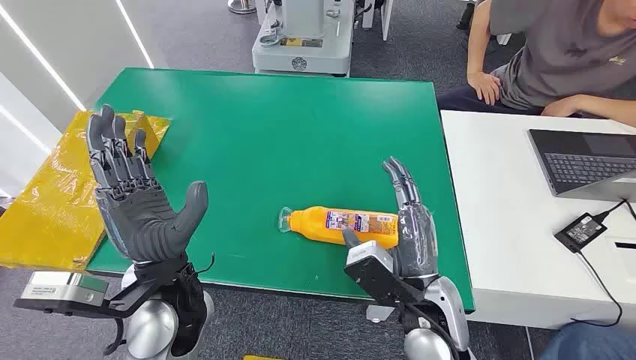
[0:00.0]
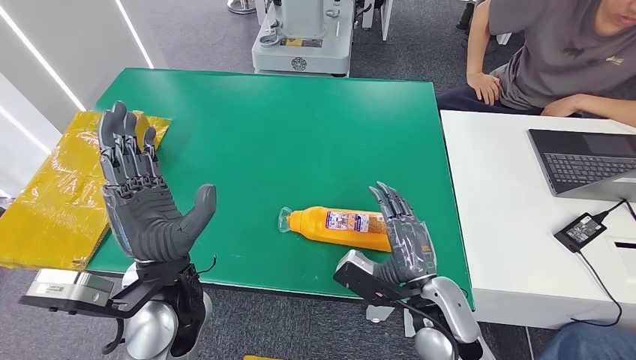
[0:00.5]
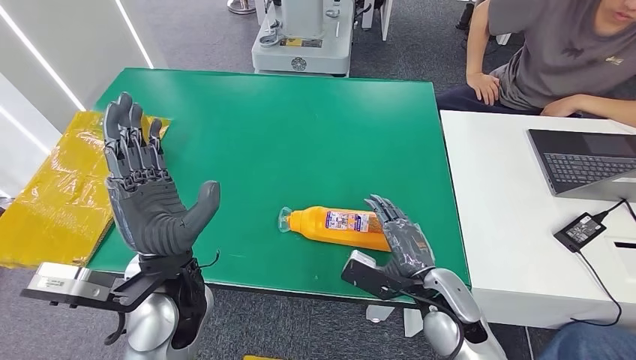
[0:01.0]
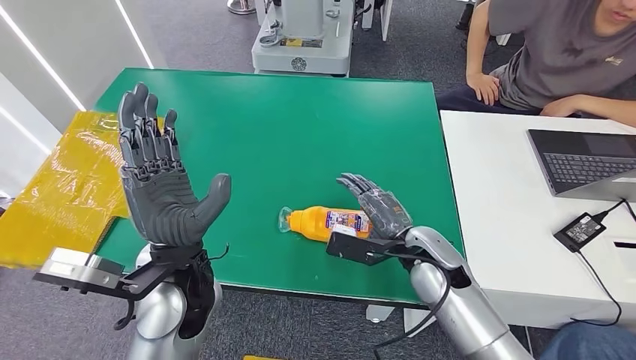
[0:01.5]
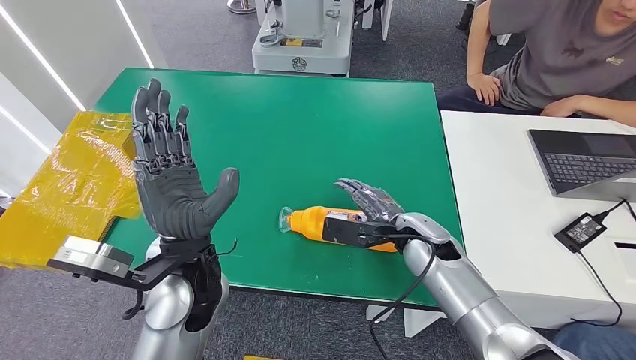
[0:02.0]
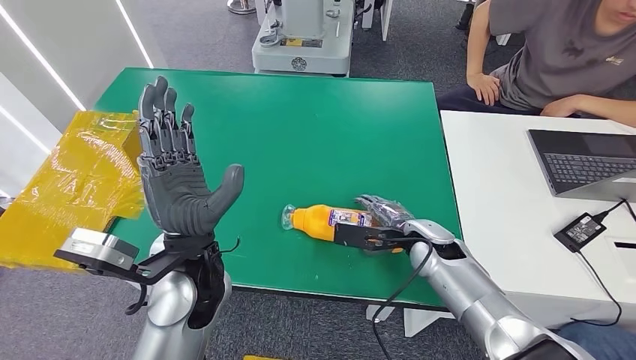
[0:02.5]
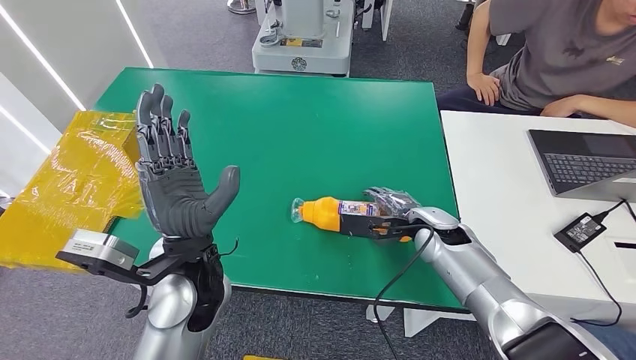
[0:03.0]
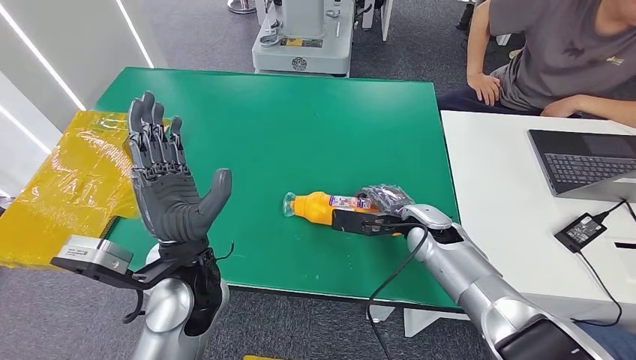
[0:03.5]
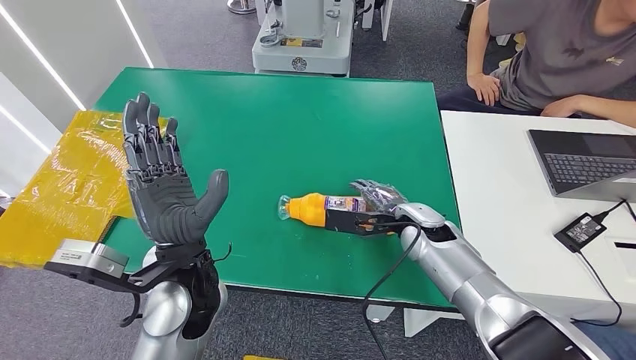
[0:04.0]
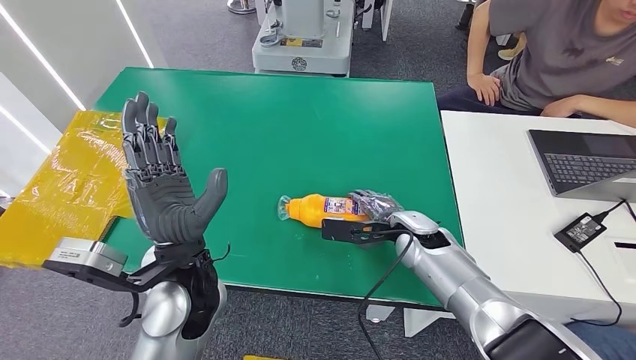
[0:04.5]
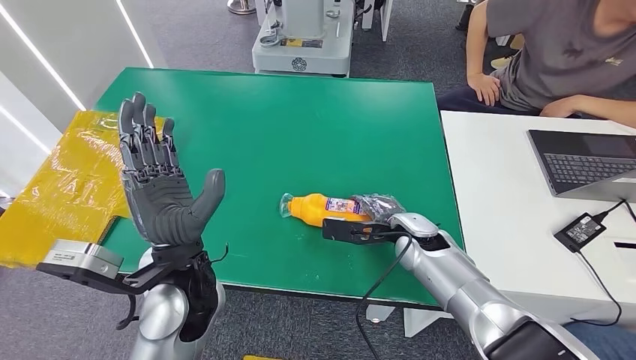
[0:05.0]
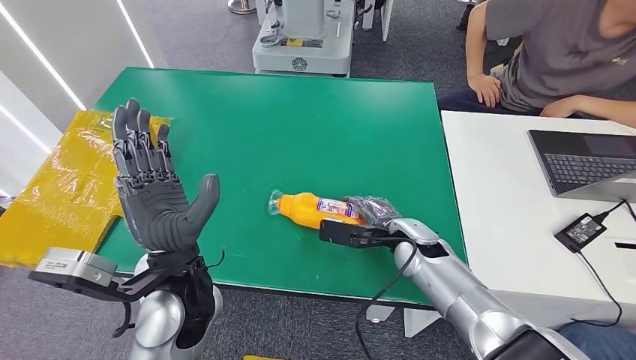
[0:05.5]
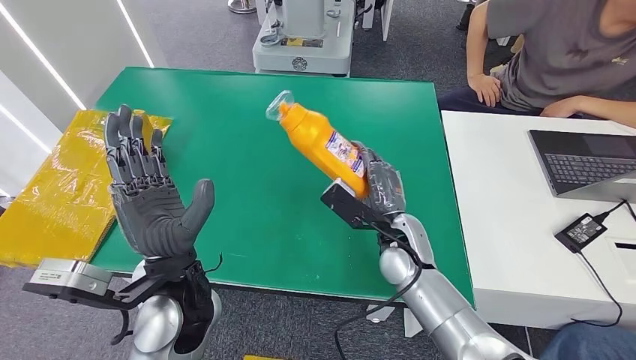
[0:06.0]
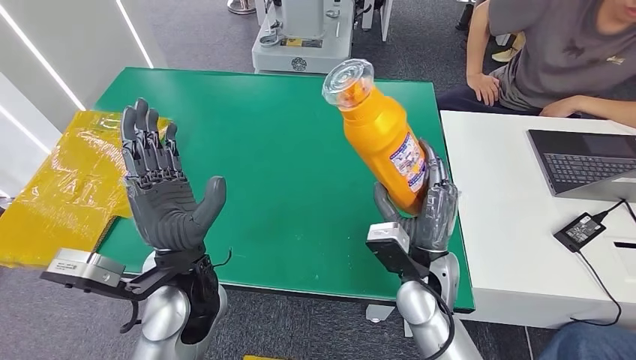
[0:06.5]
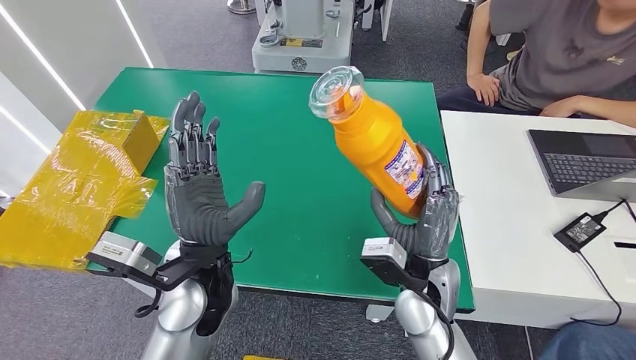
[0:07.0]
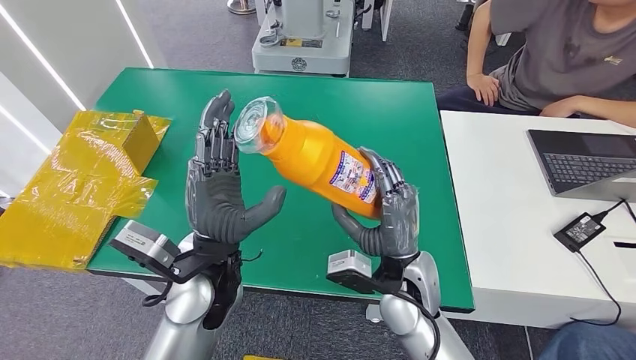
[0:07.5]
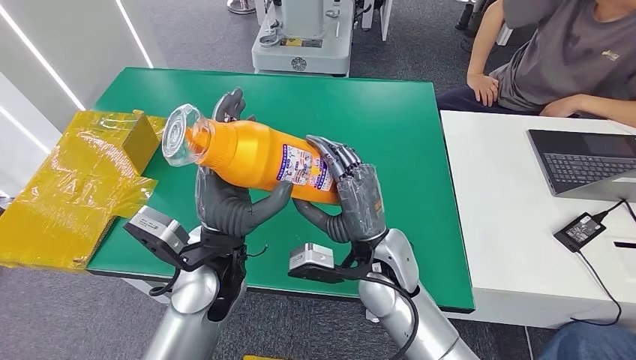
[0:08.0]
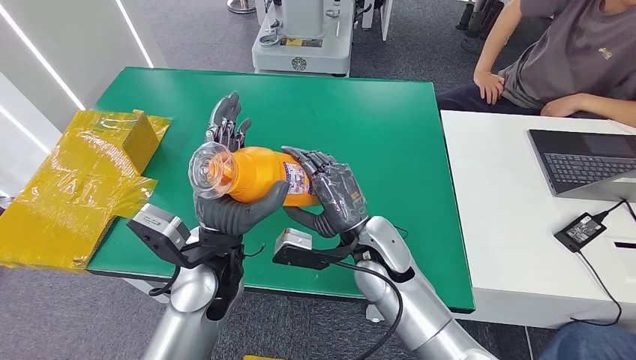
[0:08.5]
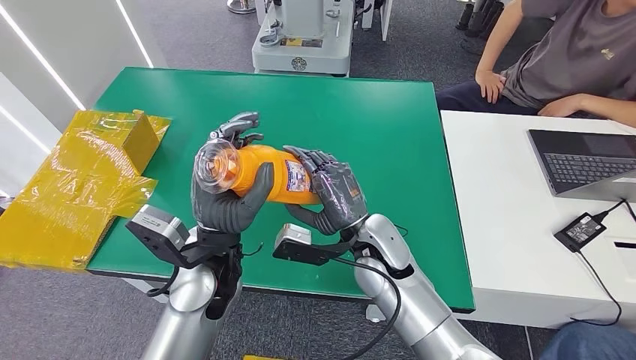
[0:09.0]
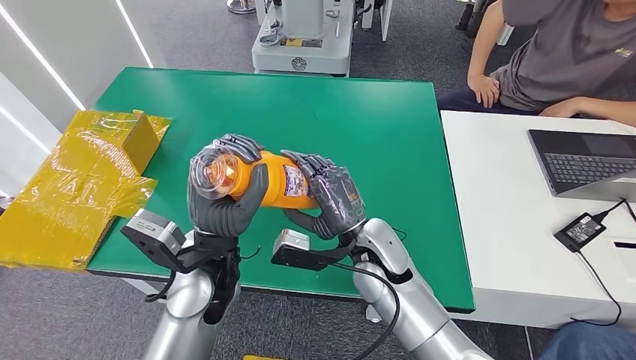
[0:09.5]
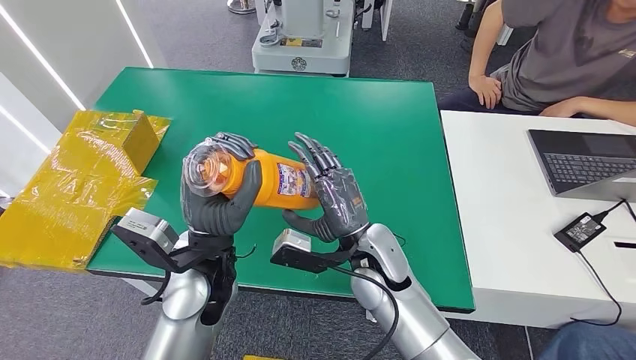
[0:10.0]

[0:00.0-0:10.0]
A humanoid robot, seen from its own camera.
Step, 0:00.0 to 0:07.0: Pick up the bottle from the table.
Step, 0:08.5 to 0:10.0: Turn the bottle to the front side.
0:04.0 to 0:06.0: The right hand shifts roughly 5 cm to the left.
0:08.0 to 0:10.0: The hands make only small movements.

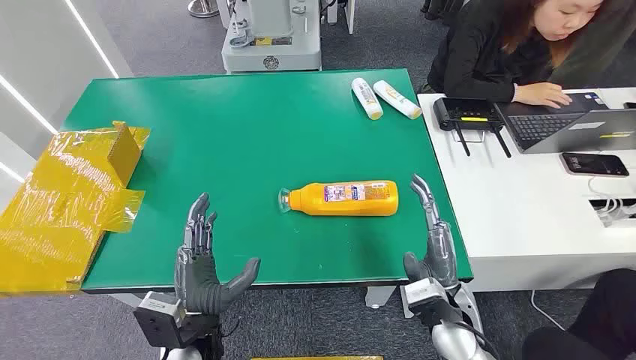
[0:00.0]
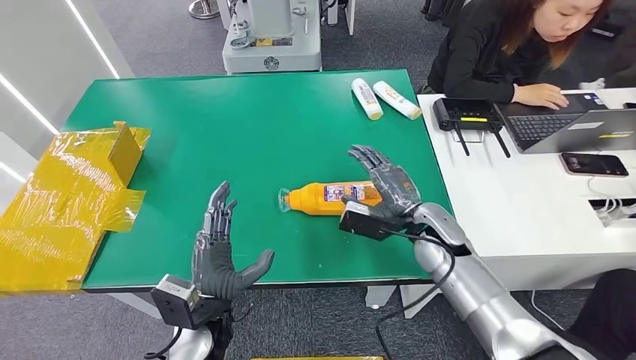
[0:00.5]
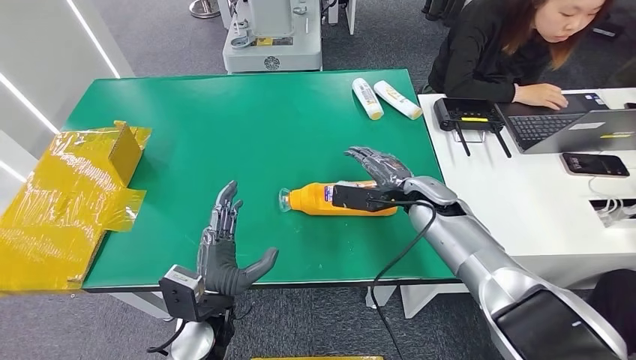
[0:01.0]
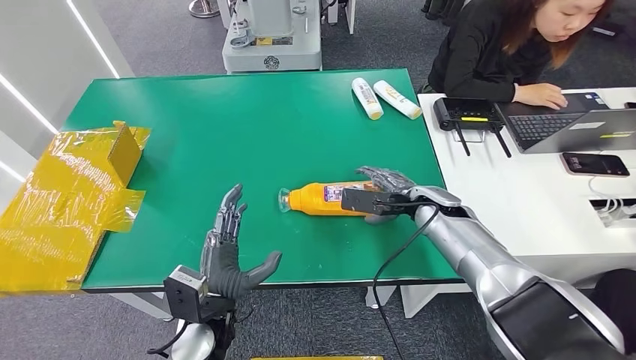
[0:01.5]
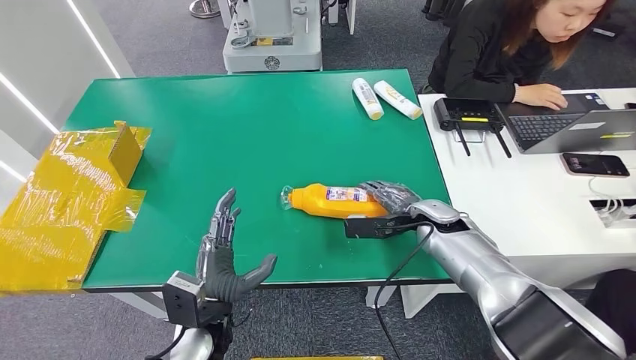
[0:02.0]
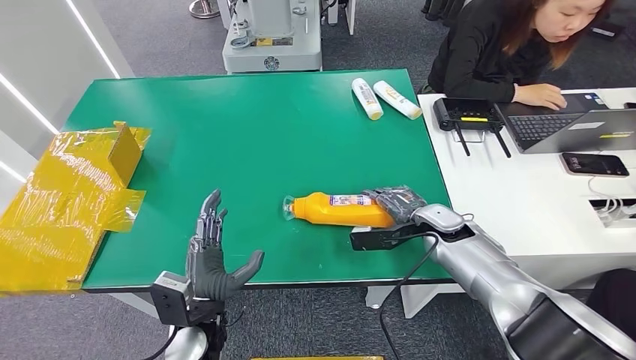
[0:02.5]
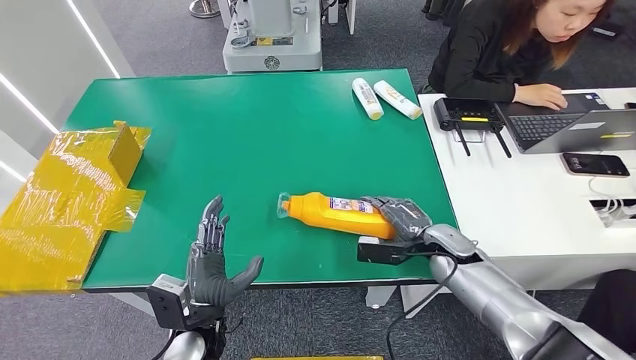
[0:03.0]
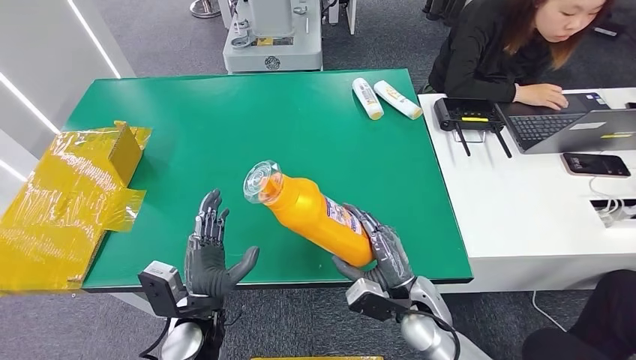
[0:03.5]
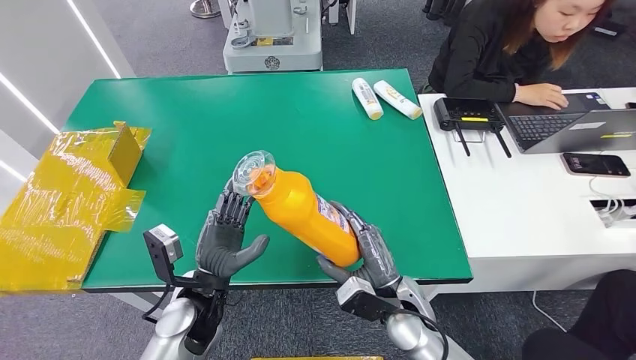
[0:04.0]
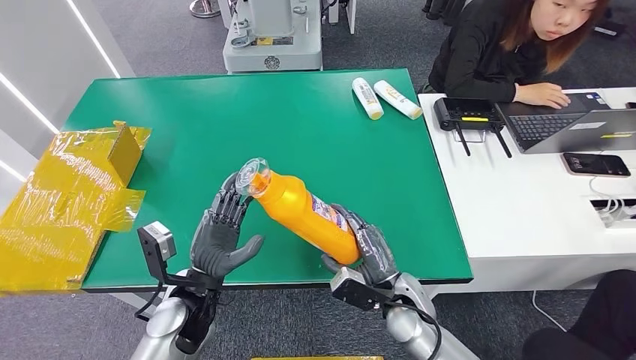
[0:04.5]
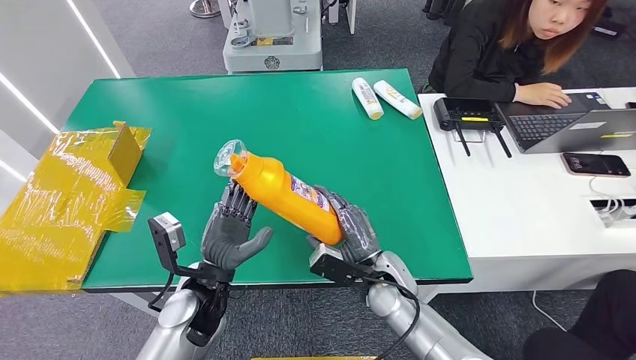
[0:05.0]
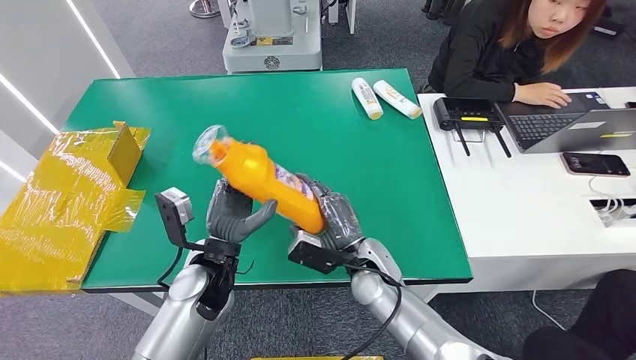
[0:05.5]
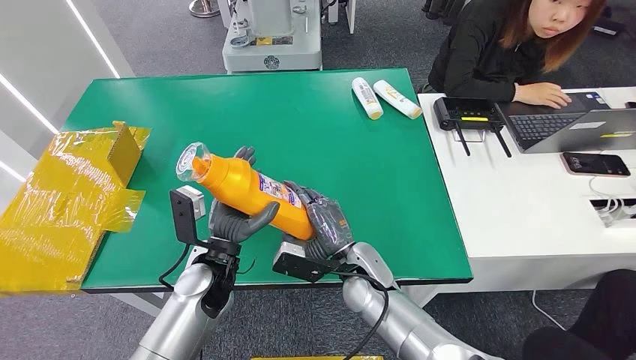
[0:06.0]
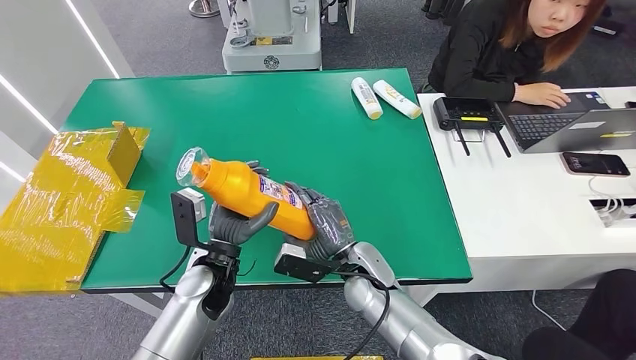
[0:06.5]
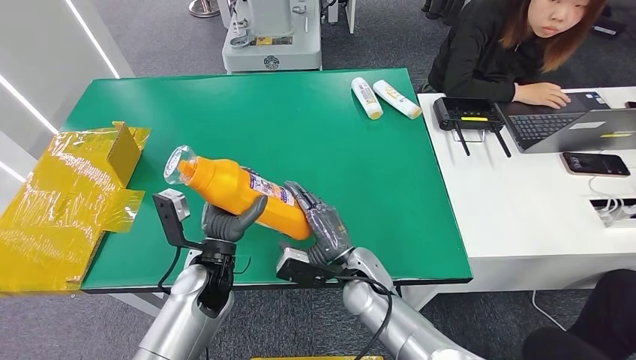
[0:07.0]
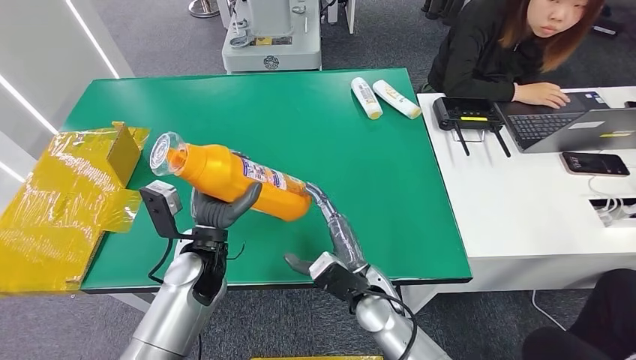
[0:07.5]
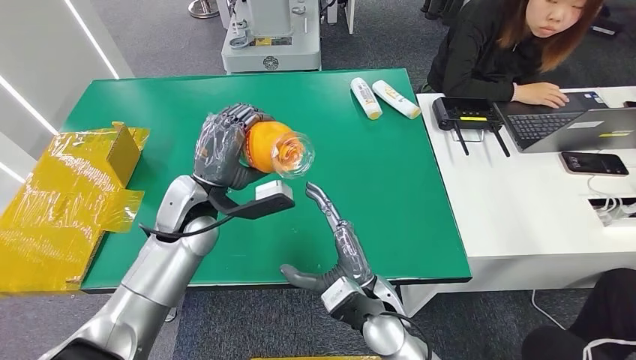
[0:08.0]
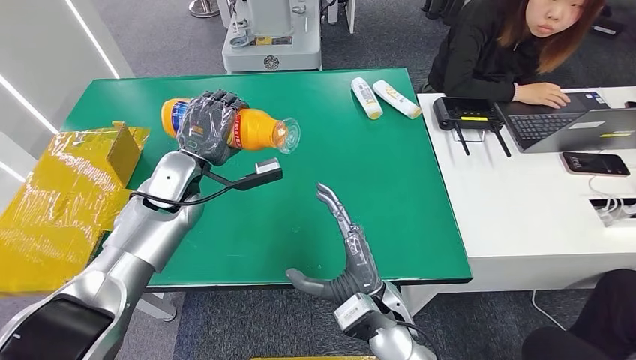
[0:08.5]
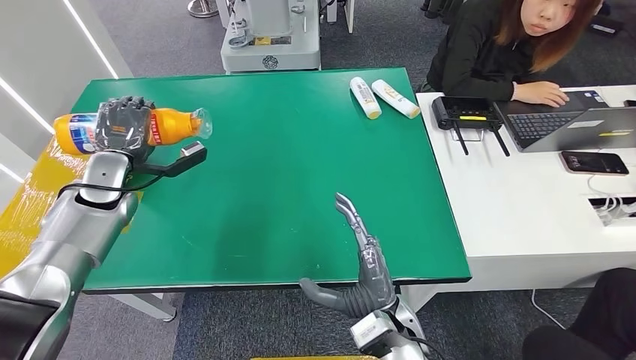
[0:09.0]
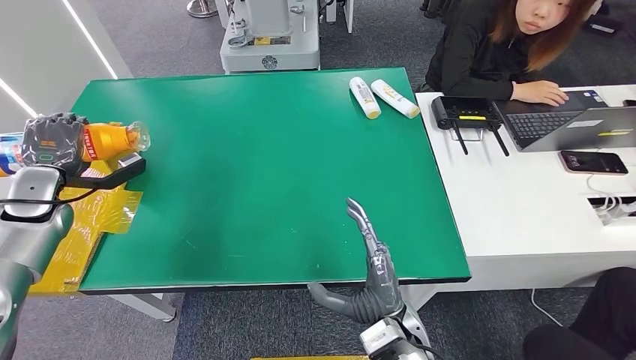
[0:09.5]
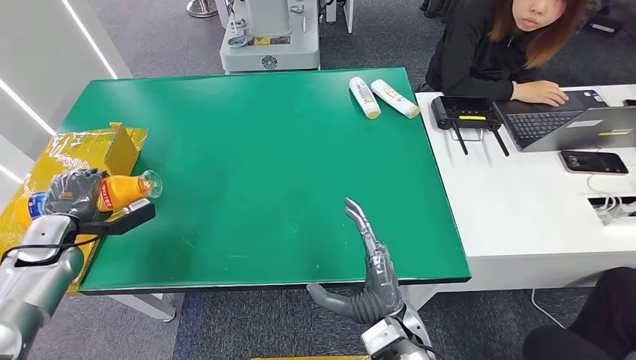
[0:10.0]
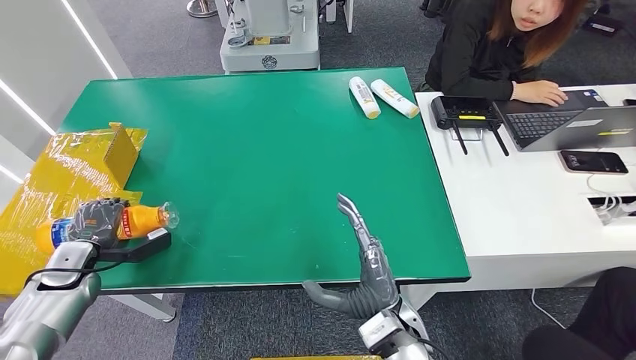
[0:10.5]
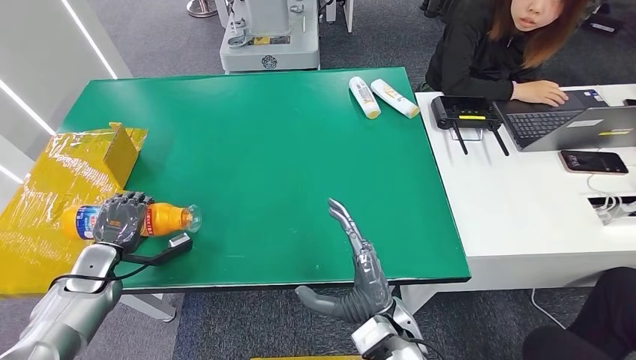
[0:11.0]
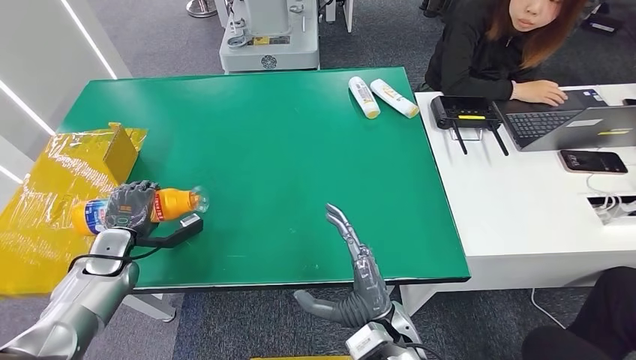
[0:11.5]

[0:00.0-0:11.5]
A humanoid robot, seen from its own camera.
Step, 0:00.0 to 0:04.0: Pick up the bottle from the table.
0:02.0 to 0:04.0: The right hand heads backward and to the left, covering approximately 15 cm.
0:04.0 to 0:06.0: The left hand moves forward, roughly 5 cm; the right hand travels to the left and forward by some 10 cm.
0:09.5 to 0:11.5: The left hand moves downward, to the right and backward, approximately 15 cm.
